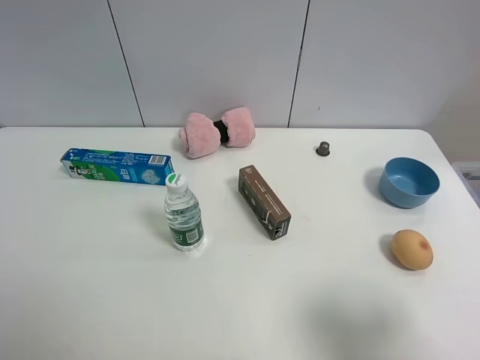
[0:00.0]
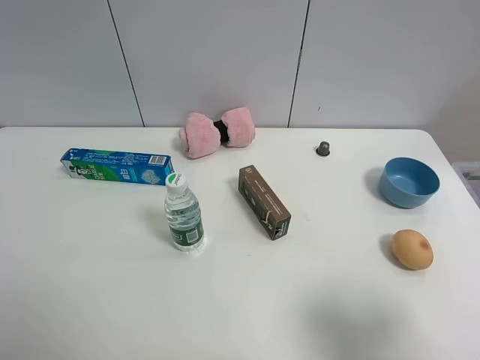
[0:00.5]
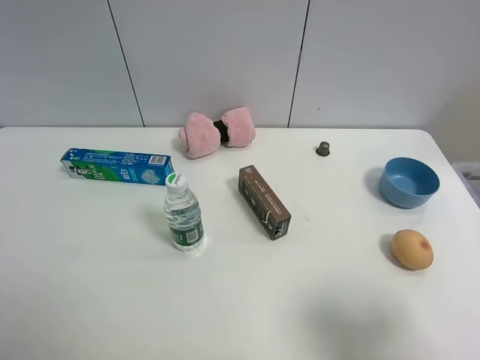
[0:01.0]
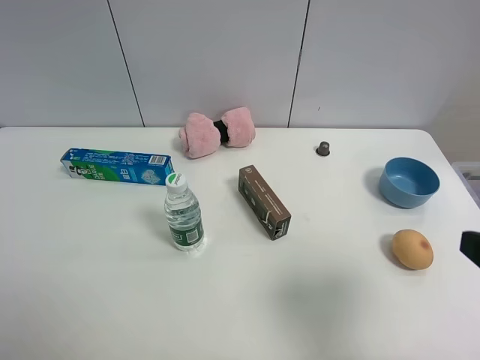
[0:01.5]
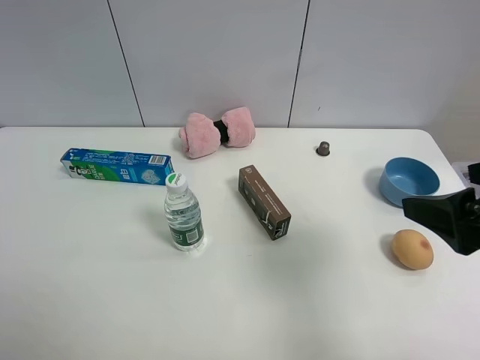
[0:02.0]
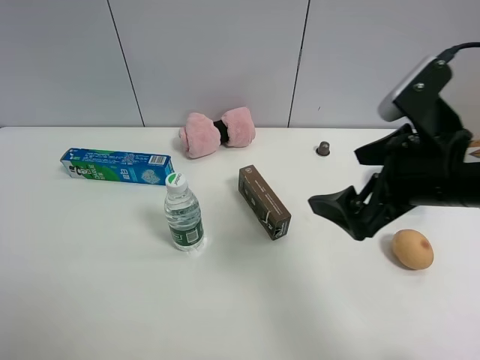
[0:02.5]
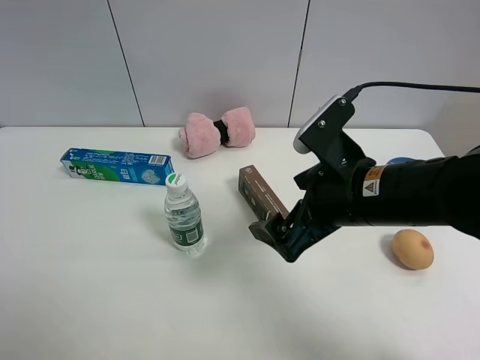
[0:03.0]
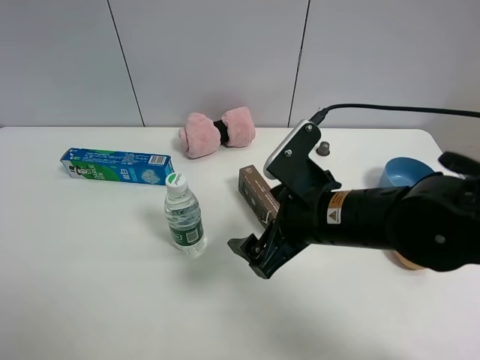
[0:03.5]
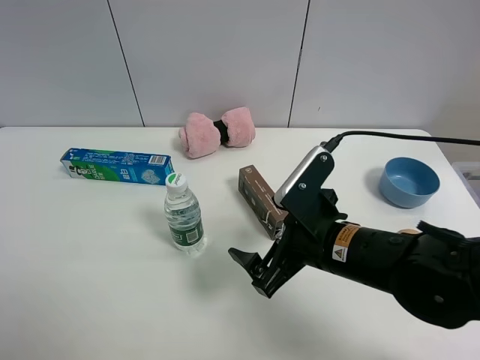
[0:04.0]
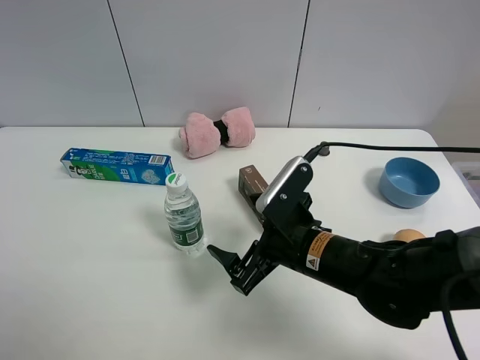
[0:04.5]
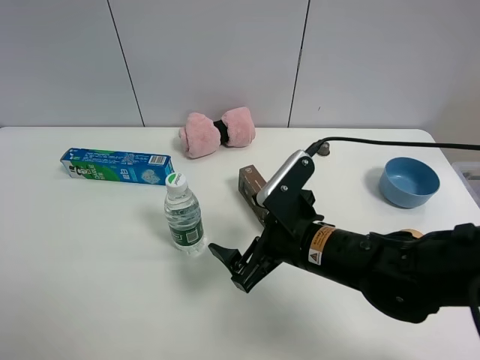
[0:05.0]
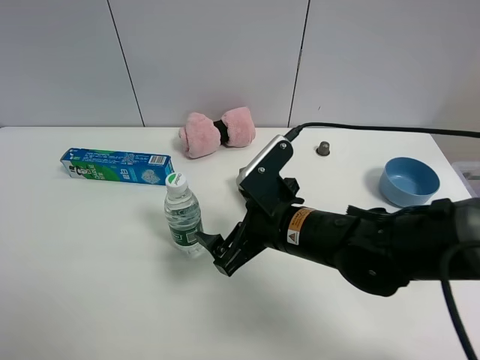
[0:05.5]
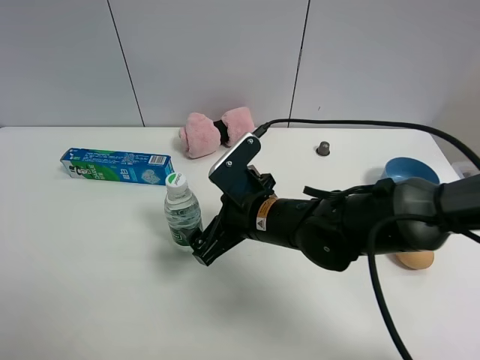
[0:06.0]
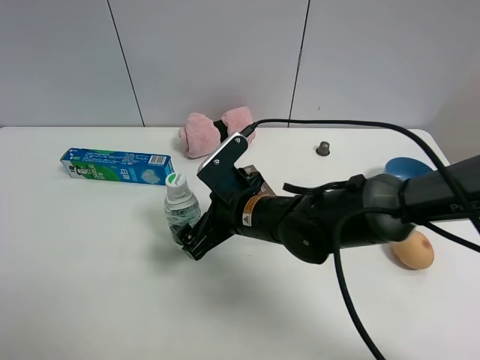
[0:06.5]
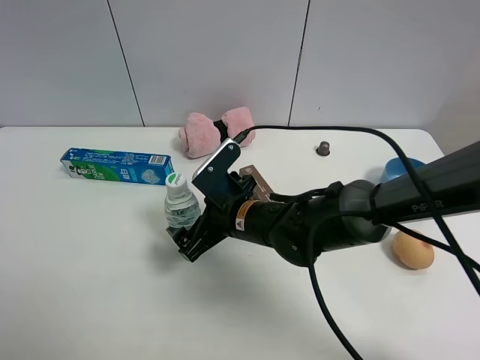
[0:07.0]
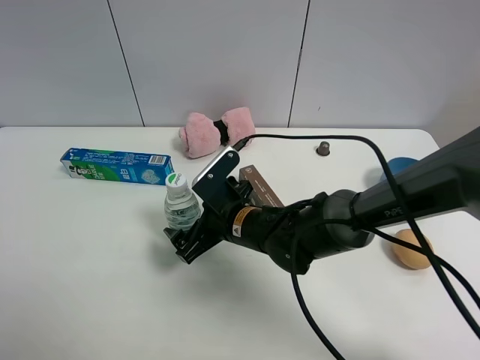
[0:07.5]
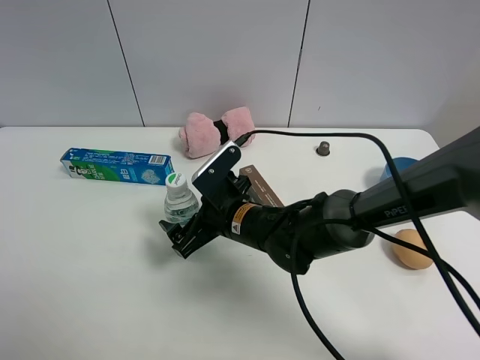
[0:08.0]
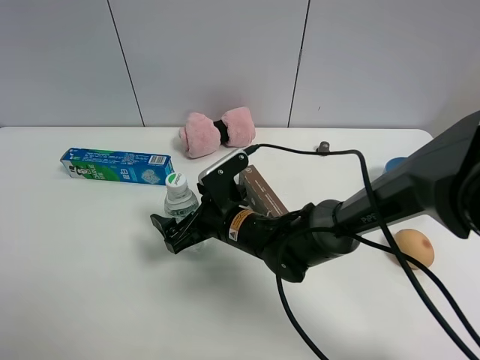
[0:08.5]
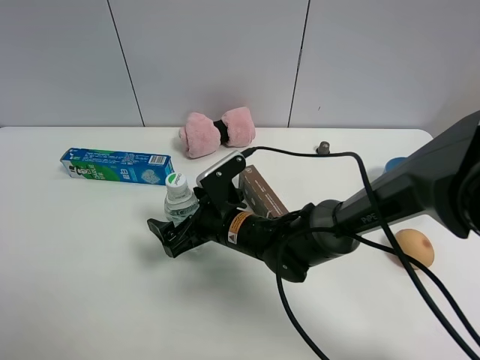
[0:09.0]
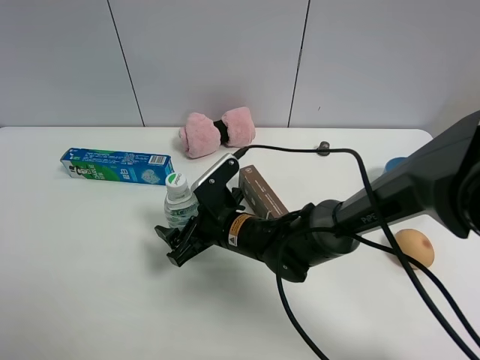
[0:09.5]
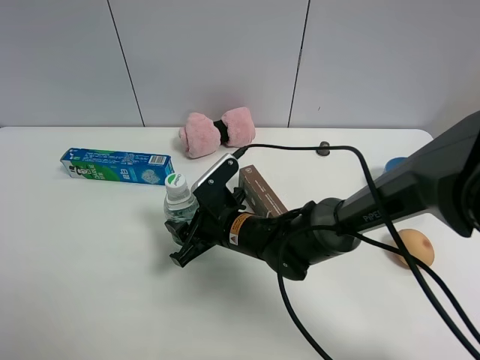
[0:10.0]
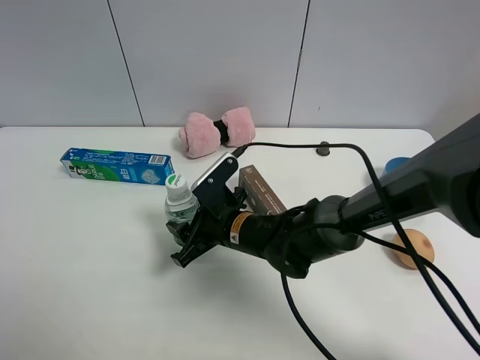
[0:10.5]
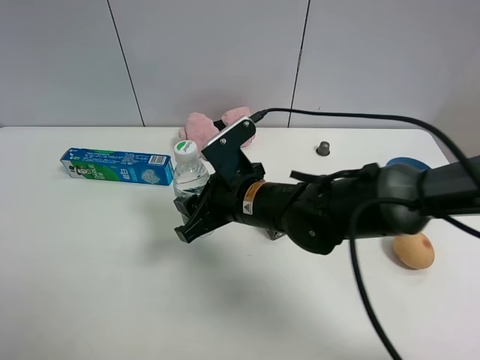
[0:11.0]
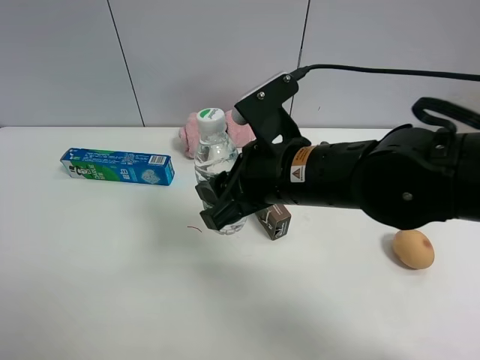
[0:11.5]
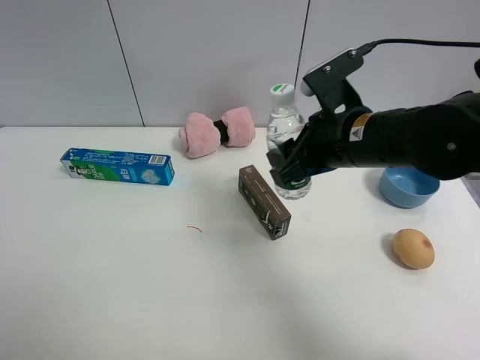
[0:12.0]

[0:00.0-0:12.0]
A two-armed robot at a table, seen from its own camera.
Task of the whole recording: the gripper move the object.
Step, 0:00.0 to 0:10.0: Grasp the YiBao mineral water with the right gripper.
0:00.0 to 0:02.0: The right gripper travels forward by approximately 10 cm.
0:02.0 to 0:04.0: The right gripper goes approximately 20 cm to the left and downward.
0:04.0 to 0:06.0: The right gripper is displaced to the left and forward by some 10 cm.
0:06.0 to 0:08.0: The right gripper ends up some 5 cm from where it was.
0:08.0 to 0:10.0: The right gripper closes its fingers.
0:10.0 to 0:12.0: The right gripper moves upward and to the right, roughly 20 cm.

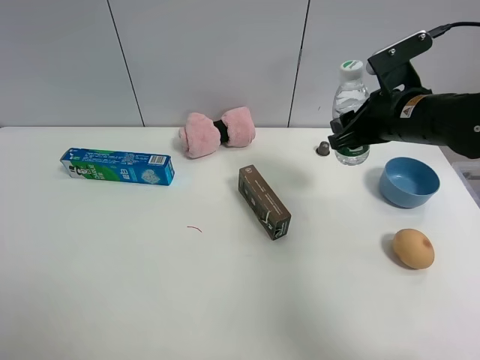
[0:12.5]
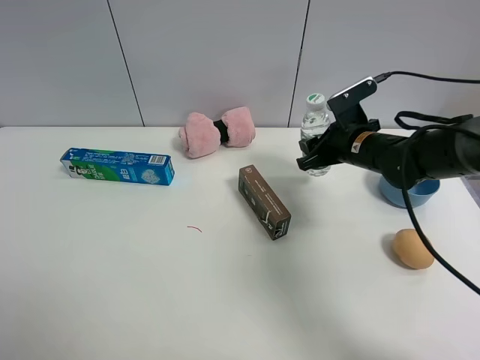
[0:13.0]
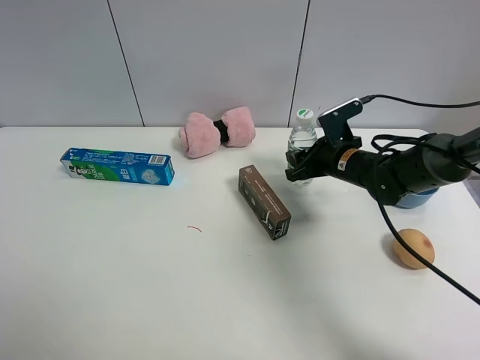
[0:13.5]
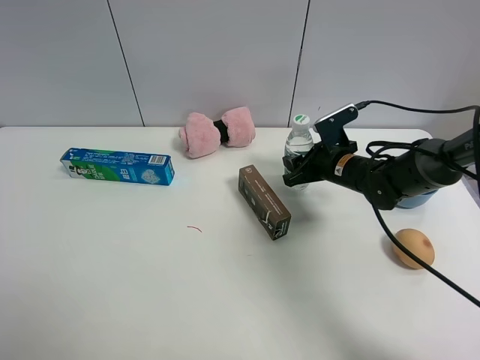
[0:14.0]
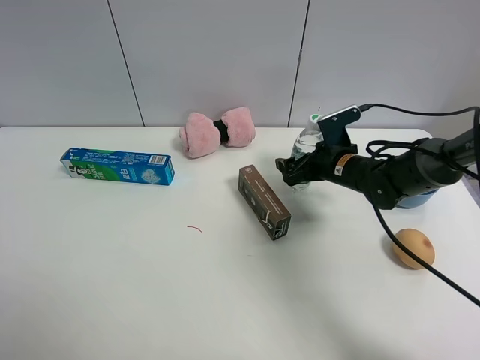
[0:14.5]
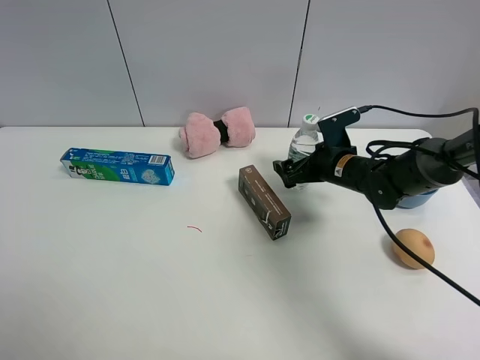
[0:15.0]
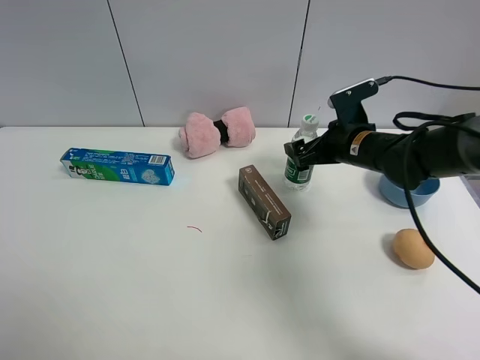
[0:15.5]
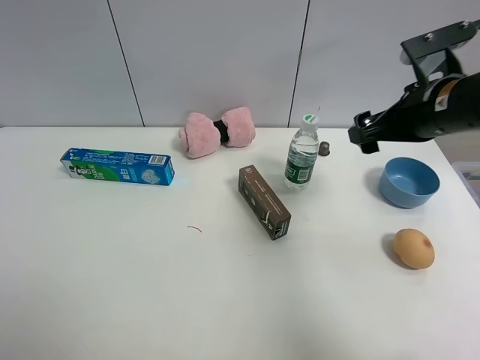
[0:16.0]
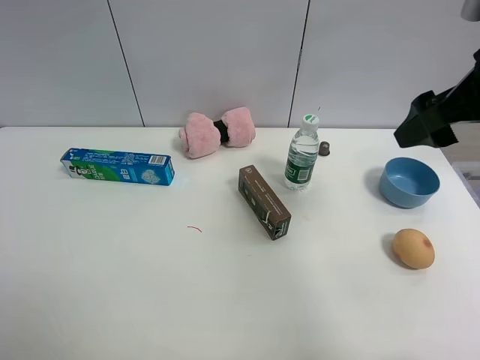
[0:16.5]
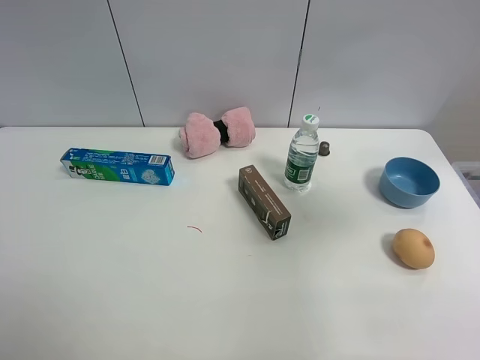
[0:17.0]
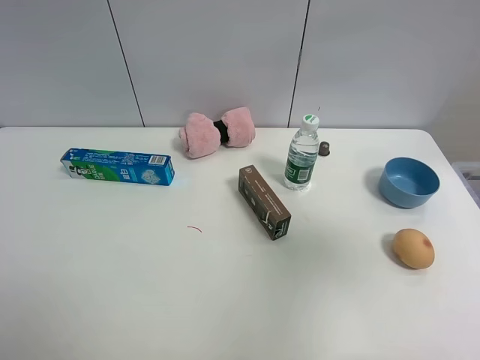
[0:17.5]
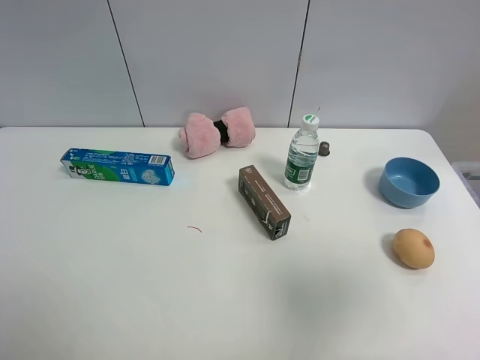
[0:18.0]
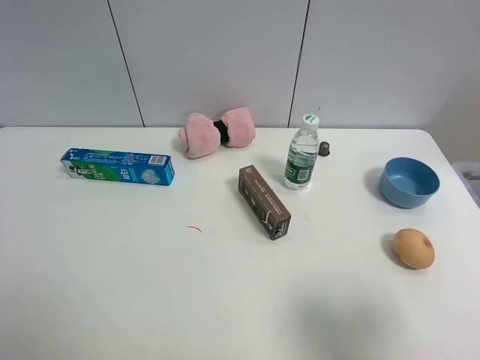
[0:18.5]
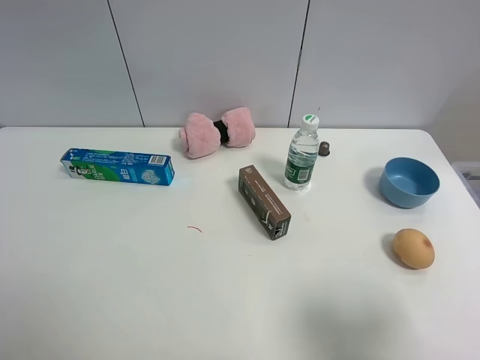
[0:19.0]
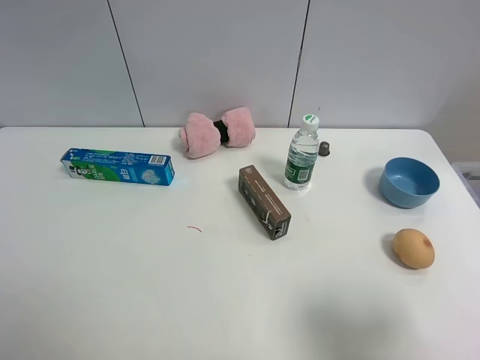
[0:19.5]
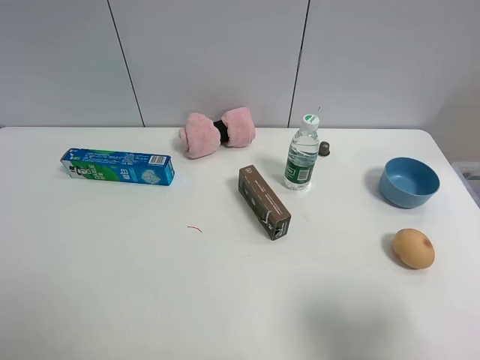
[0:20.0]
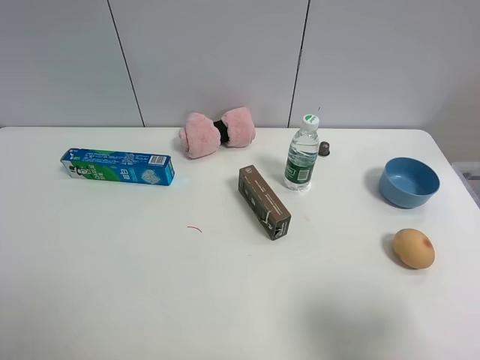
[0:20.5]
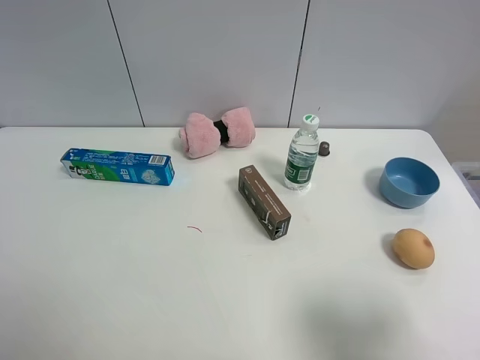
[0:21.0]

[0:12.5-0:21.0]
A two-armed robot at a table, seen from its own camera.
Task of the whole recording: the gripper move the object.
Step, 0:12.5 to 0:15.0: Place the YiBao mineral water on the table with the right gripper.
0:12.5 to 0:14.5: The right gripper is displaced downward by approximately 15 cm, and opens its fingers.
0:14.5 to 0:16.5: The right gripper heads upward and backward, covering some 30 cm.
0:16.5 to 0:19.0: The right gripper heads backward and downward, covering about 25 cm.
0:19.0 to 0:21.0: Both grippers stay put.

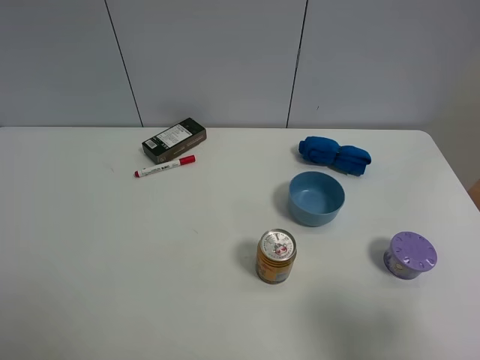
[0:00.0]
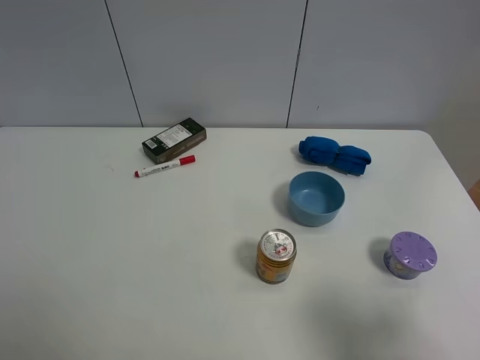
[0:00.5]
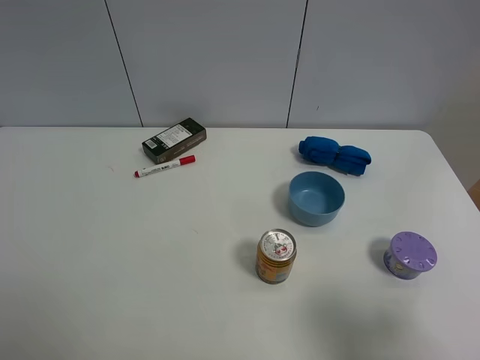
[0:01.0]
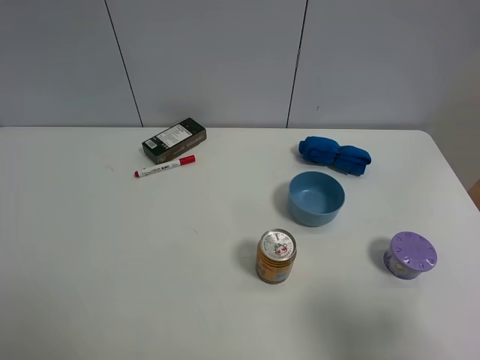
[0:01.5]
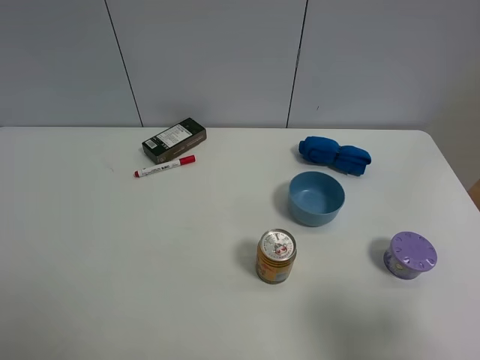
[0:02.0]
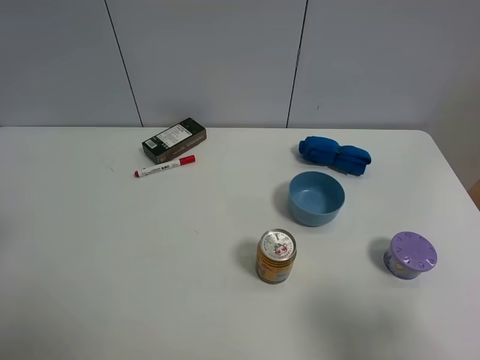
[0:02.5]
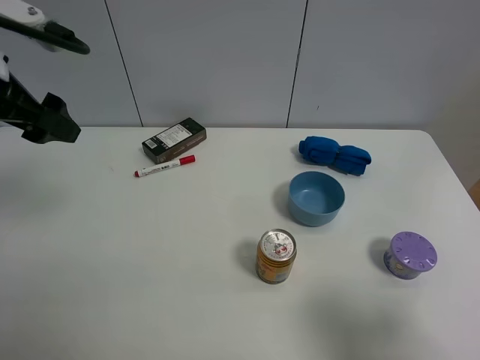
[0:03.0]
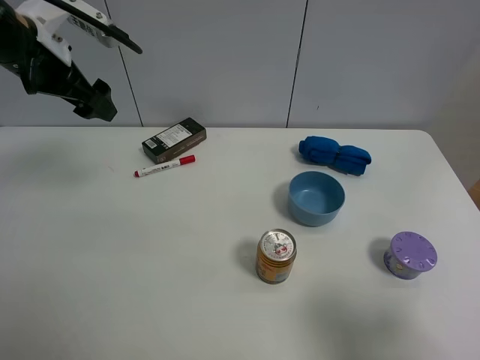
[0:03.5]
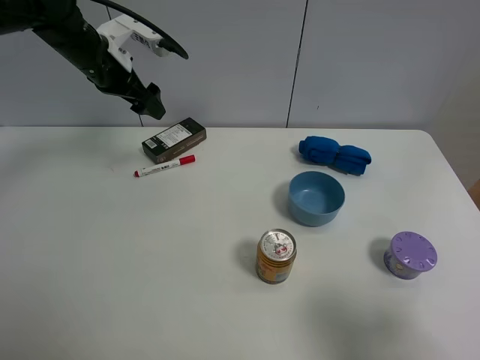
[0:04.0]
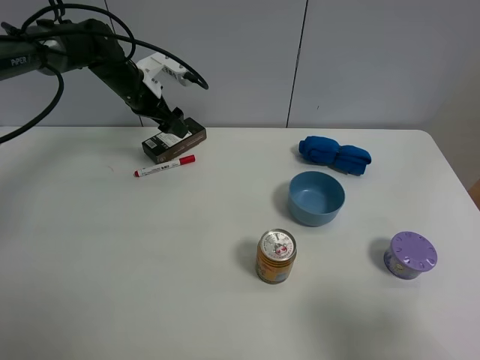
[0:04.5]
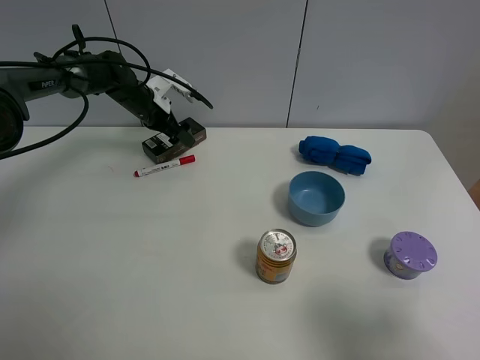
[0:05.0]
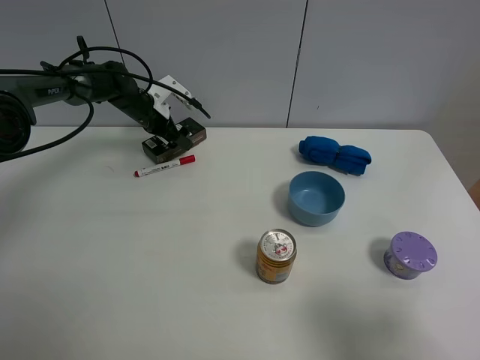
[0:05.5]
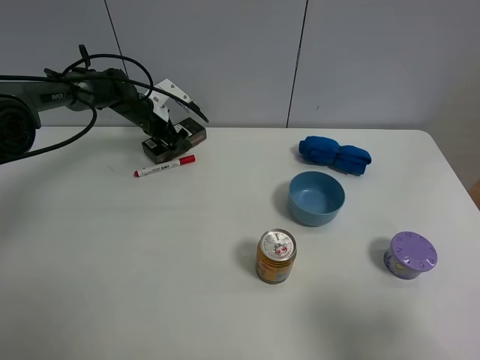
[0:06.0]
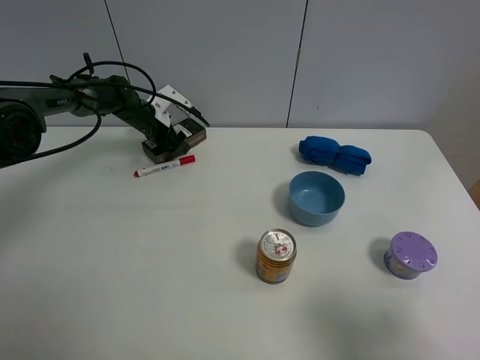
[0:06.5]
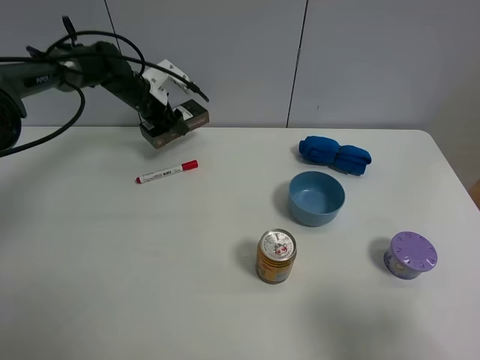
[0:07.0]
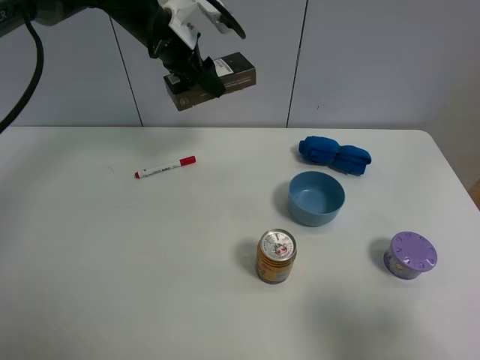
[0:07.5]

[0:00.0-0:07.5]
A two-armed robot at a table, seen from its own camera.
Task of the whole recording: the gripper move the object.
Step, 0:00.0 to 0:06.5: Grasp the brown box with the left gripper.
0:02.0 to 0:04.0: The left gripper goes roughly 40 cm forward.
0:04.0 to 0:05.5: The left gripper heads downward and forward, covering roughly 15 cm.
0:05.5 to 0:07.5: The left gripper travels upward, to the right and backward by some 20 cm, and closes.
